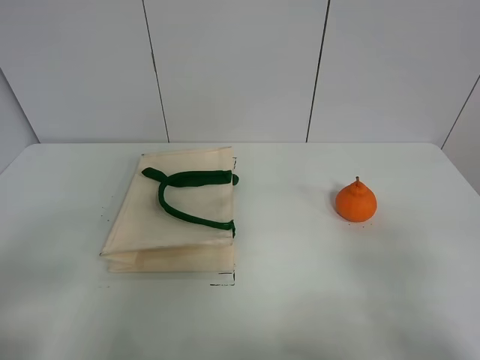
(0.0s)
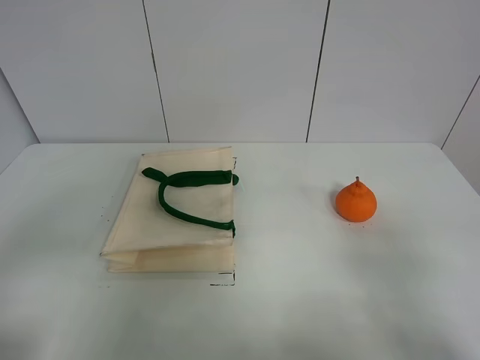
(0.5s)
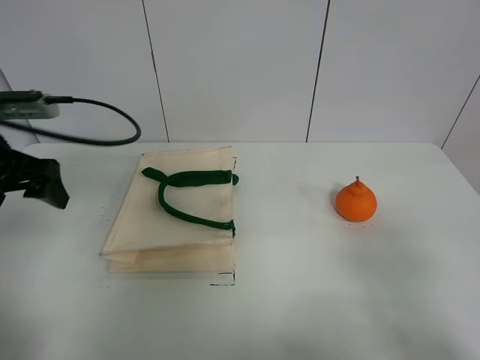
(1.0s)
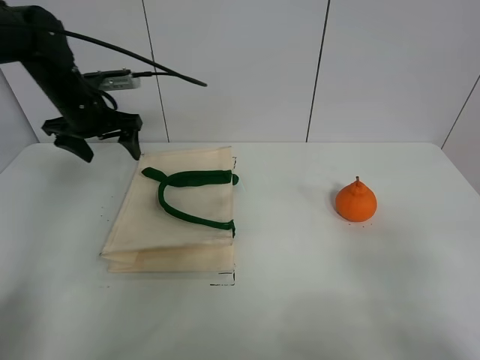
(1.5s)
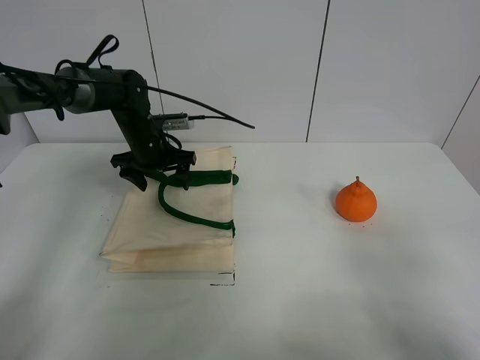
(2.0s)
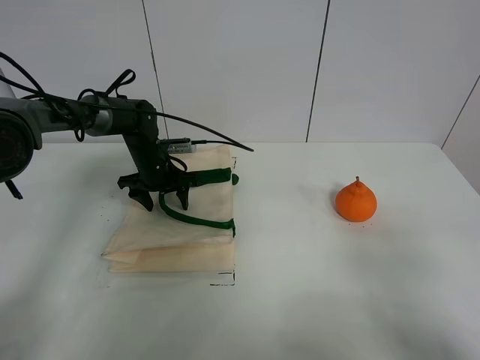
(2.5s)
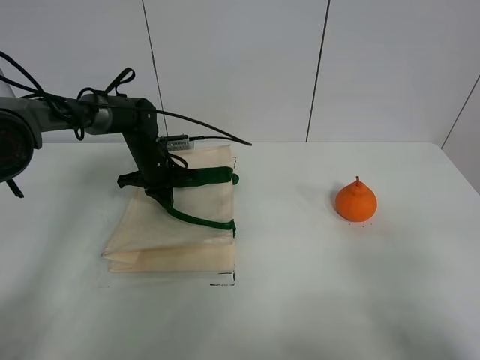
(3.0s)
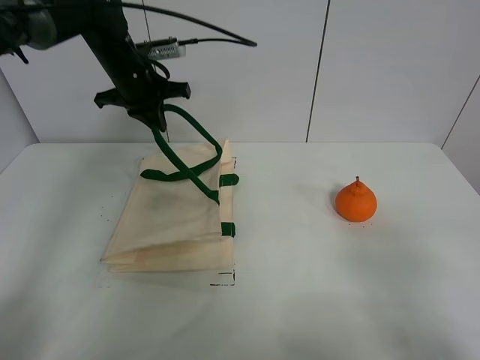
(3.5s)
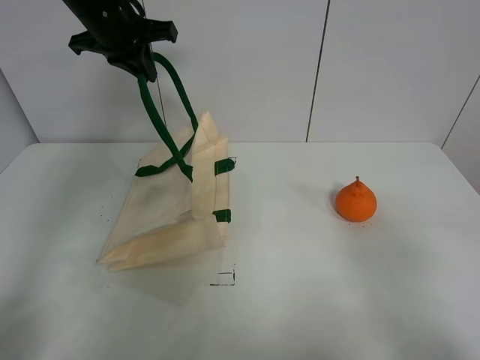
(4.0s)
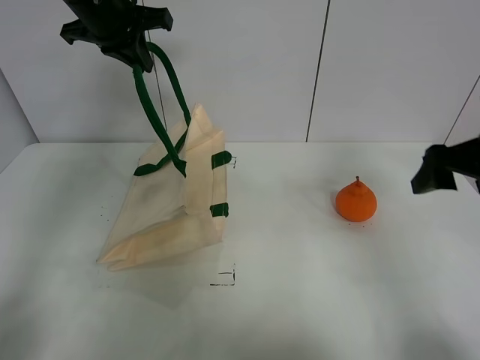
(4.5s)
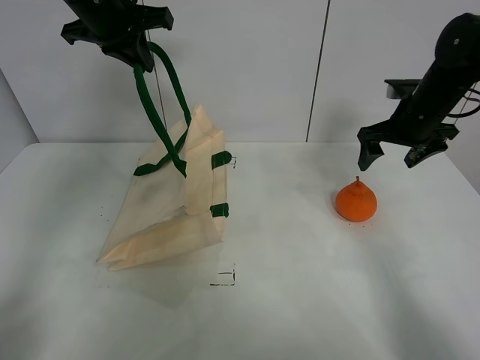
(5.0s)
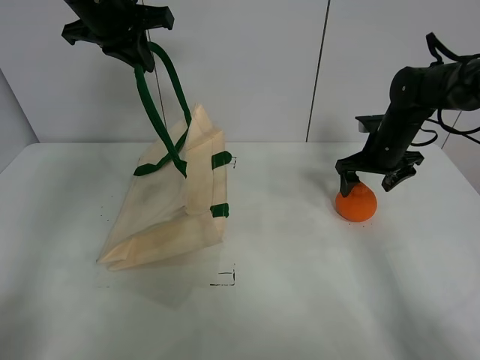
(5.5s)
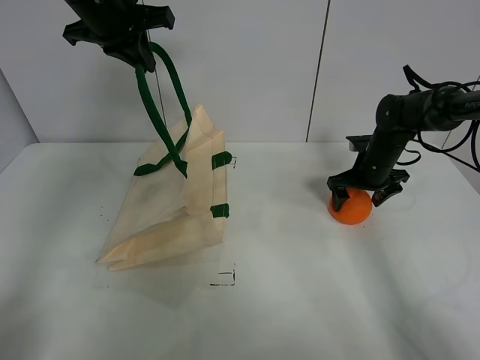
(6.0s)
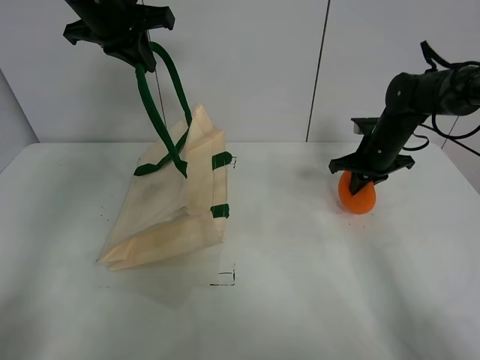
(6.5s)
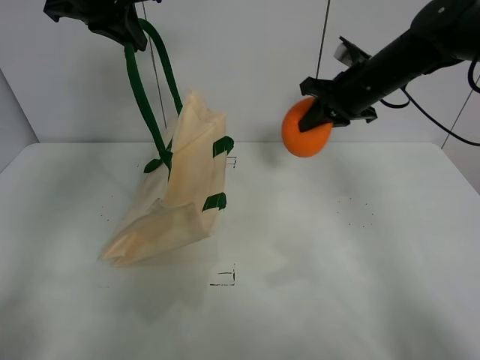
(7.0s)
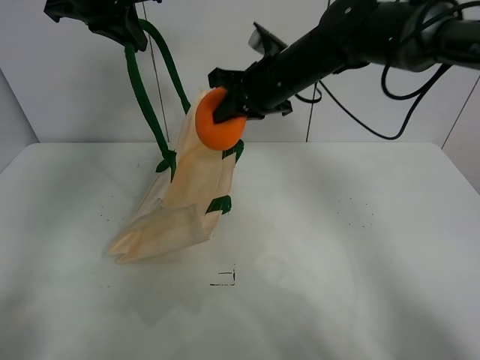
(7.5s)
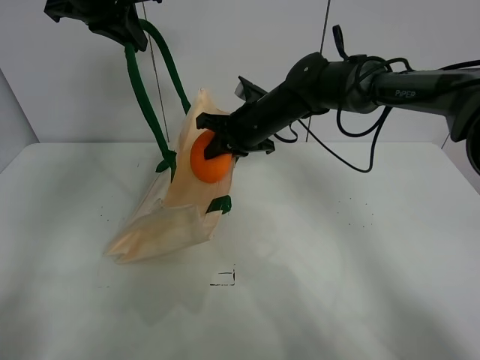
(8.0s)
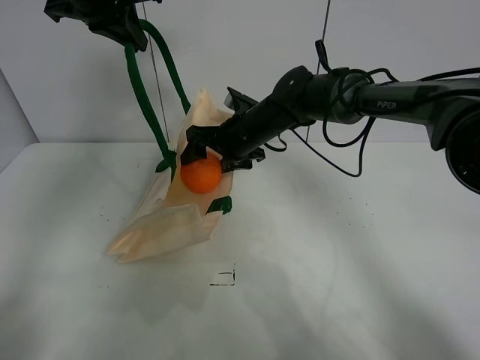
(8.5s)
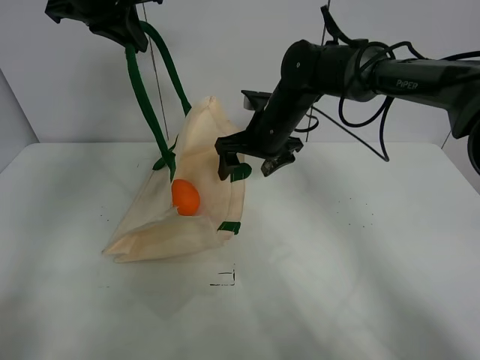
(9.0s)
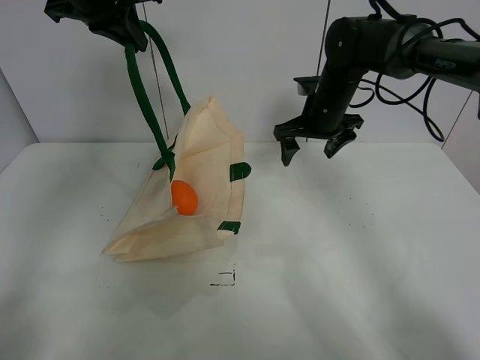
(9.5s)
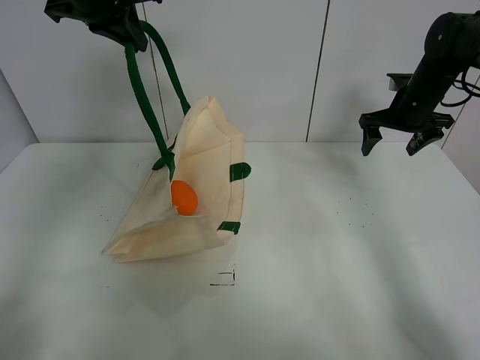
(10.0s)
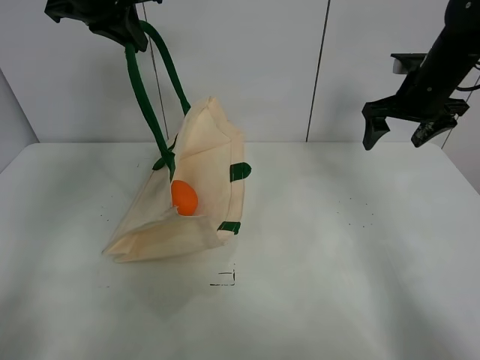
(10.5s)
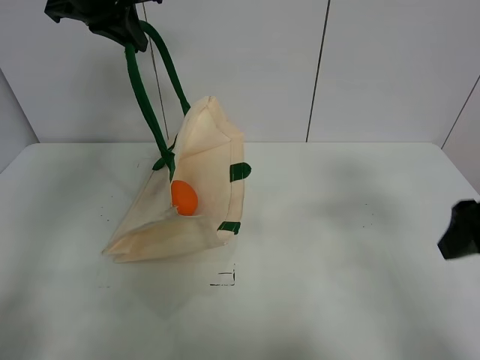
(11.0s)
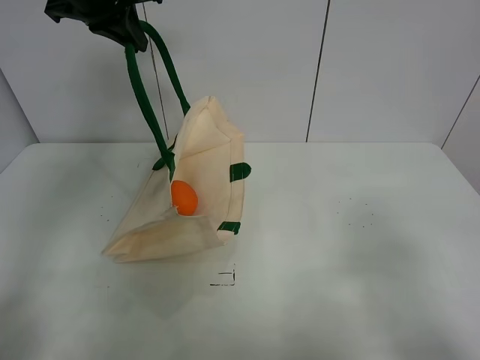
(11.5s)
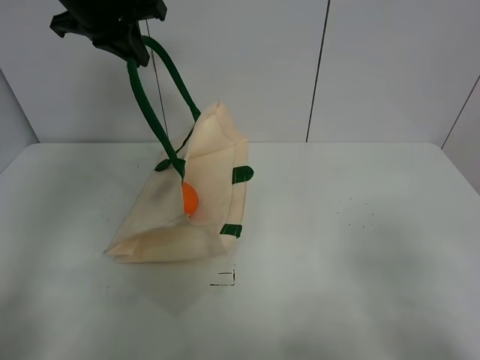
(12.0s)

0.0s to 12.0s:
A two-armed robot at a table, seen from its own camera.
Task of the whole recording: open the white linen bag and put the orange in the bag.
Step, 0.0s to 3.5s: Lift the handbag with left gripper.
Step, 4.0s to 6.0s: Grasp the orange with right gripper.
Step, 6.5s to 8.5s: Place the orange in the handbag with right gripper.
0.0s to 2.0s: The left gripper travels forward by approximately 50 cm.
2.0s to 4.0s: The left gripper shifts about 20 cm upward, and closes up.
4.0s to 6.0s: The right gripper goes roughly 40 cm forward and downward.
6.0s to 8.0s: The right gripper is displaced to the left by about 25 cm, and closes its fingers.
8.0s to 10.0s: The right gripper moves to the right, roughly 25 cm, and opens up.
10.0s to 12.0s: The right gripper shifts some 50 cm backward.

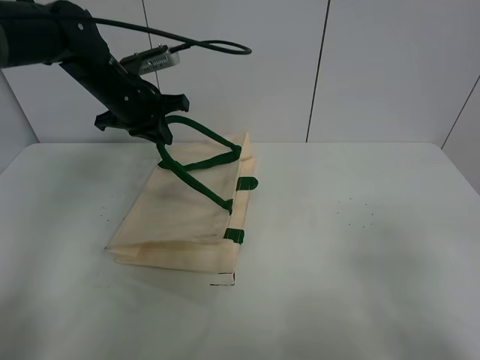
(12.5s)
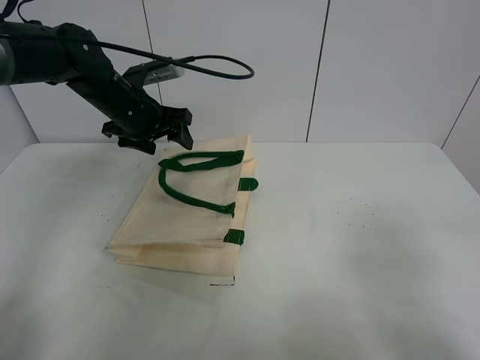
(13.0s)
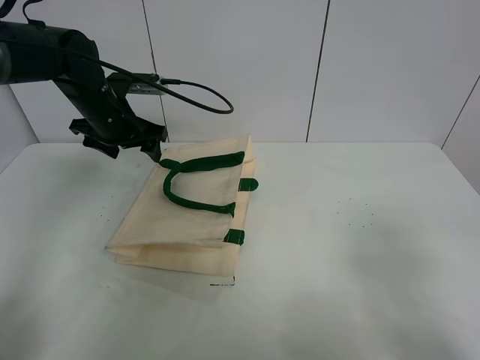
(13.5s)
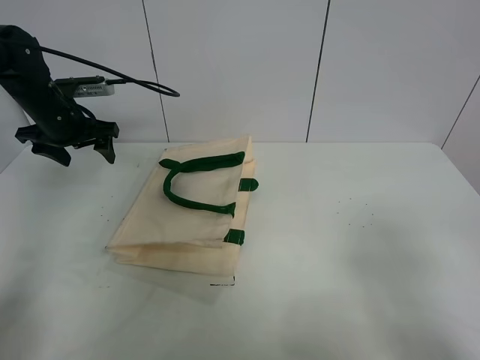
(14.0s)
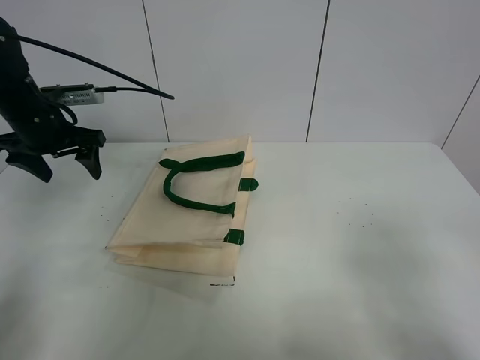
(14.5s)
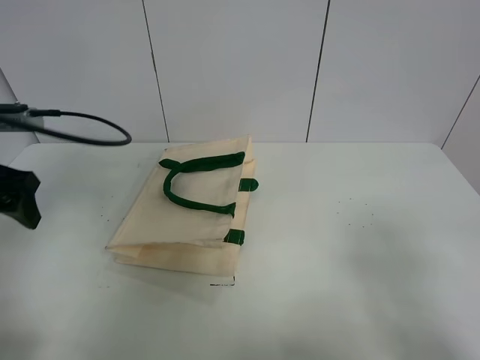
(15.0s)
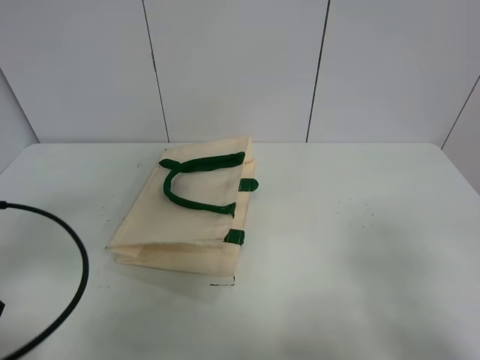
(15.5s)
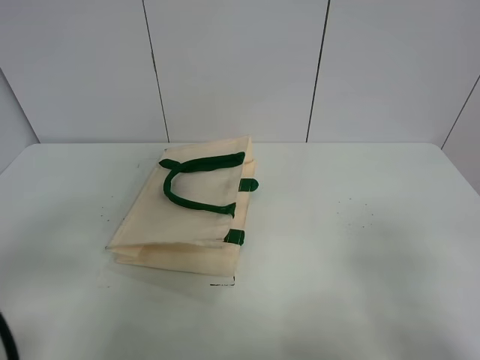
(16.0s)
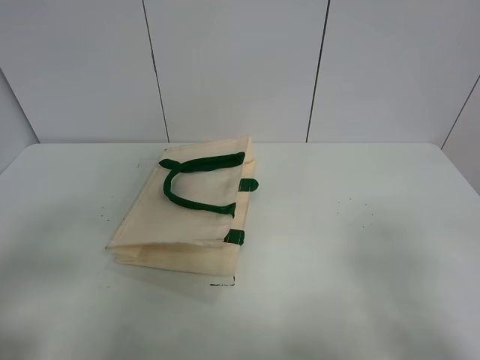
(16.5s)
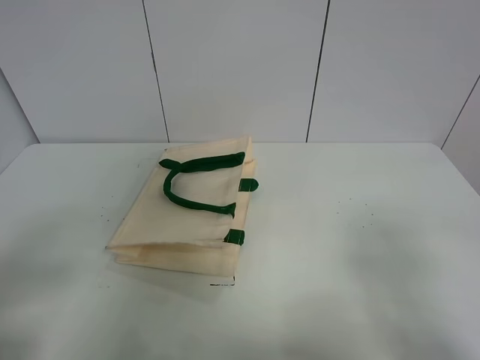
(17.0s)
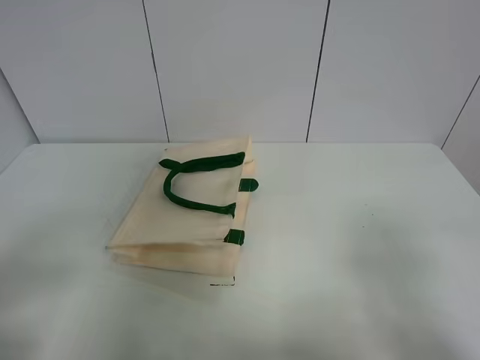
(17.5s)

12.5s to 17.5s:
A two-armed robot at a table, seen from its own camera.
Task of the whole recording: open the white linen bag and put the orange in the bag.
12.5s to 15.0s: The left gripper shifts approximately 20 cm backward and to the left, and opens up.
15.0s to 17.5s: The left gripper goes roughly 25 cm backward.

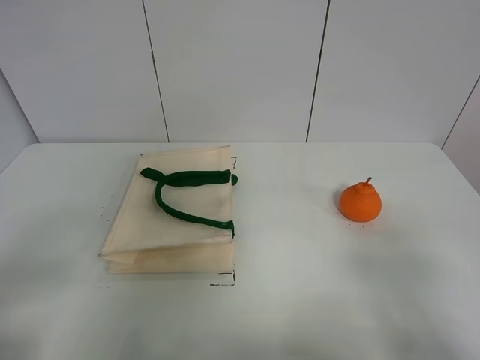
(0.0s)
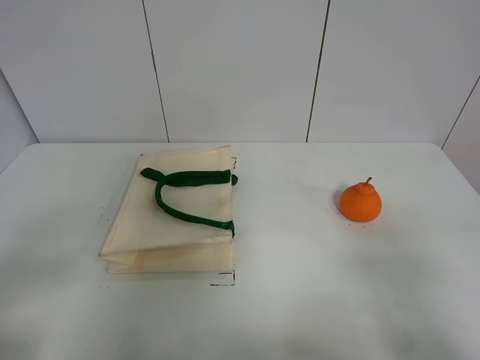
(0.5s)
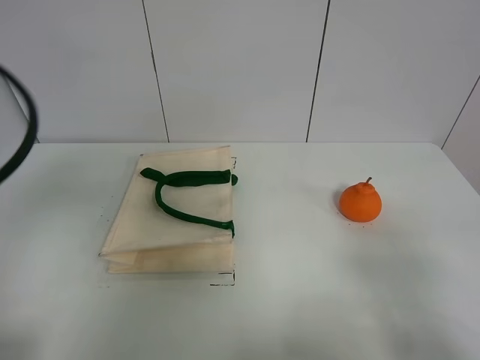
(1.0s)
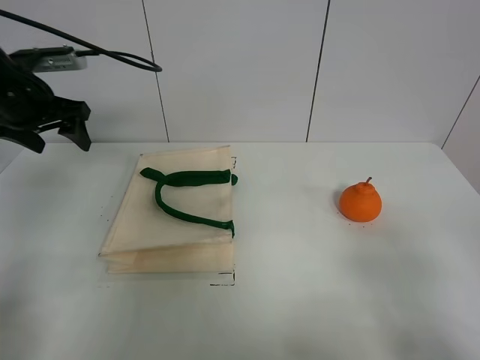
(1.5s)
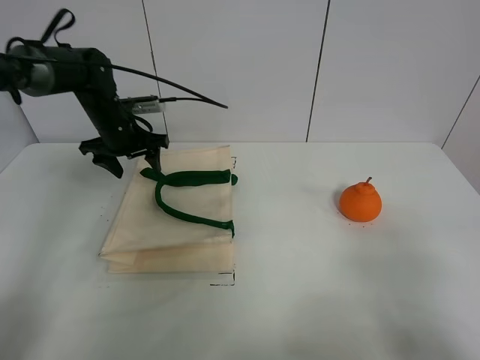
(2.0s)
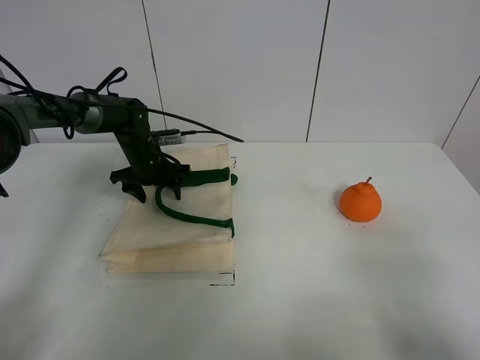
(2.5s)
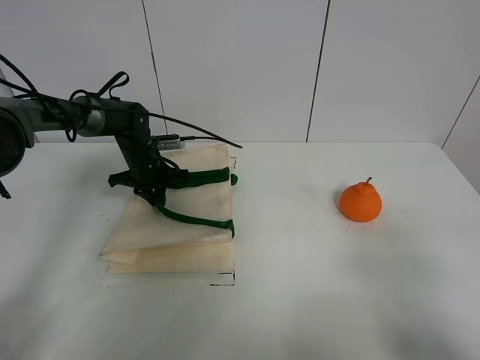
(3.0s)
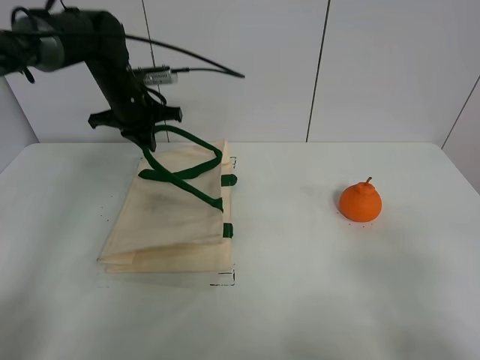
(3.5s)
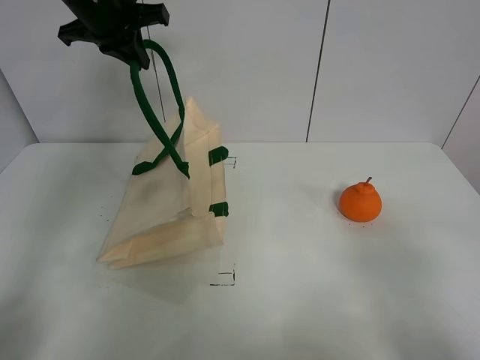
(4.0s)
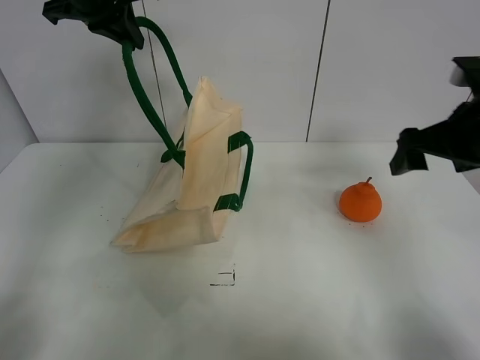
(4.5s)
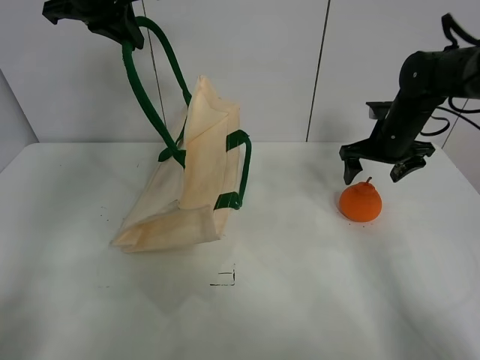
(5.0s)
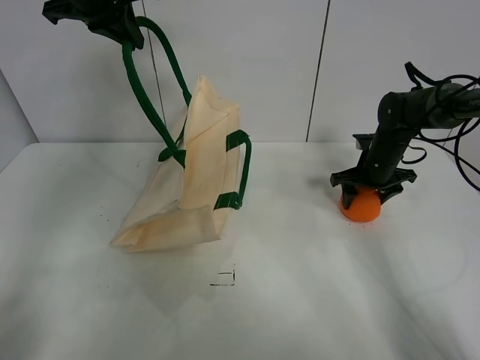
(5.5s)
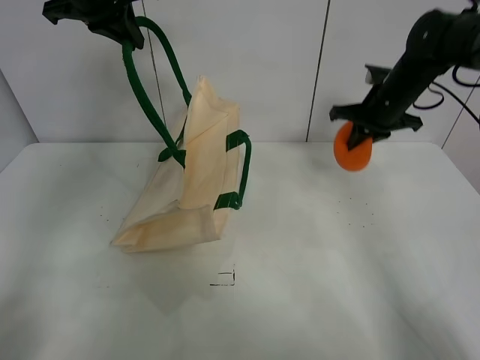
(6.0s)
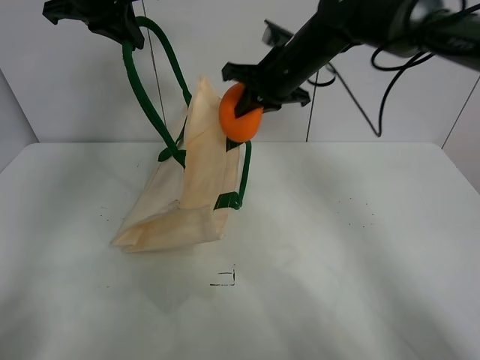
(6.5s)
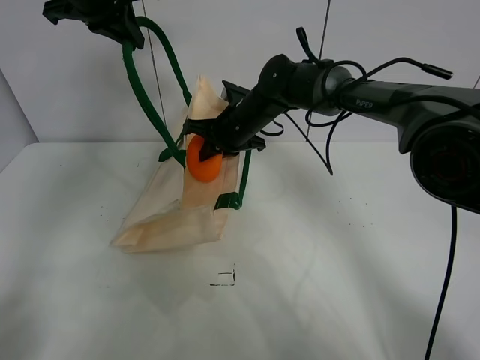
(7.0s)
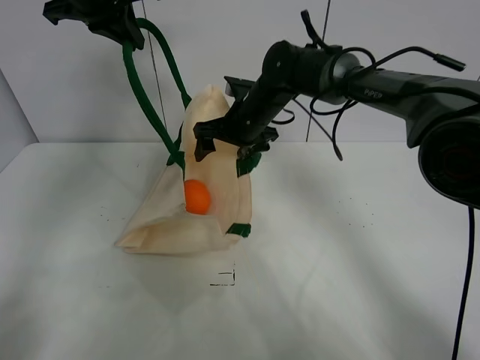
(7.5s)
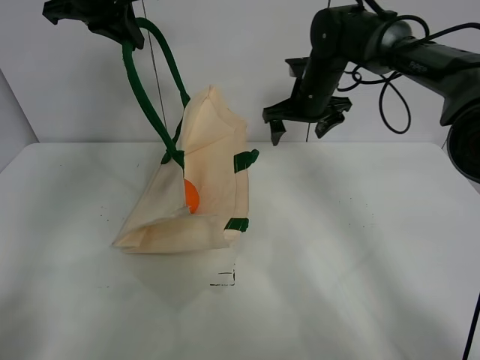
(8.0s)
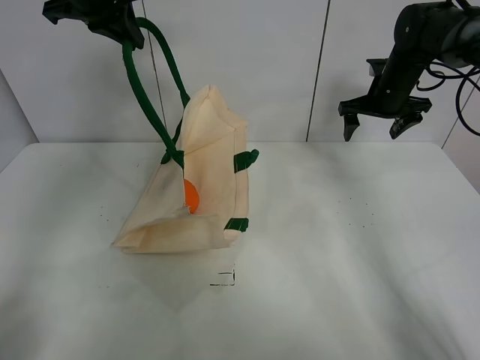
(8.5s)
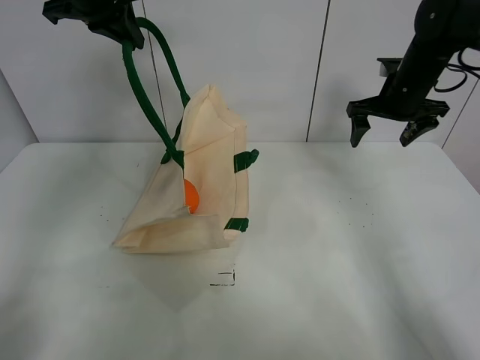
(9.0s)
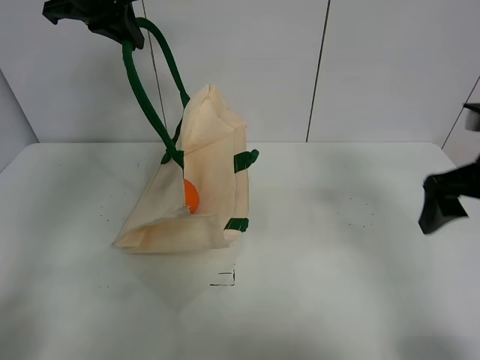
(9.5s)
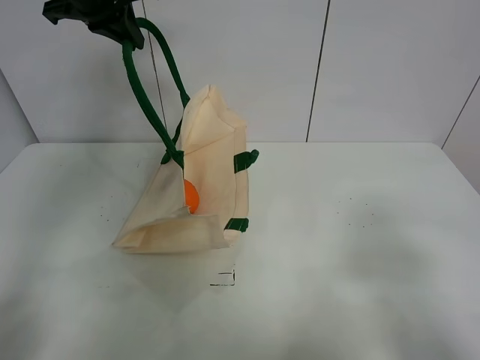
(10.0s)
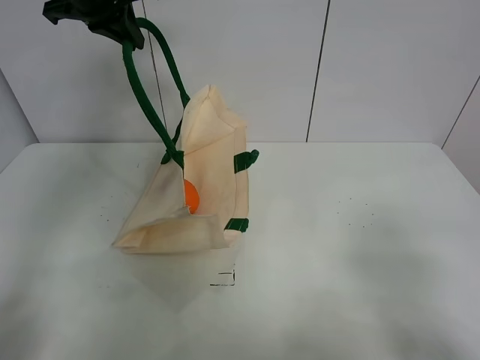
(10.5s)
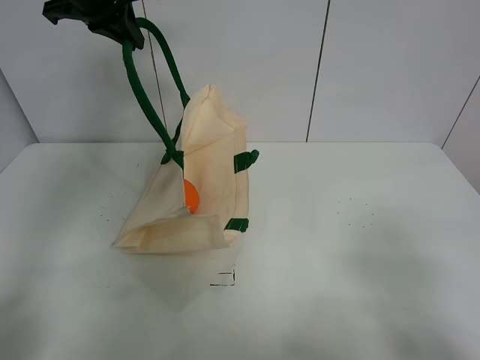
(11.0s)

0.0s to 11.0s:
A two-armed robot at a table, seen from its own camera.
Task of the whole recording: open the white linen bag and put the orange in the bag.
Step, 0.0s to 4.0s: Lift the handbag with left gripper.
Step, 4.5s to 5.5s: Grasp the orange with right gripper.
Step, 6.0s to 7.5s: Place the orange in the handbag with right gripper.
0.0s to 2.0s: The left gripper is displaced forward by about 50 cm.
2.0s to 3.5s: The left gripper moves about 10 cm downward and comes back, and closes up.
3.5s to 5.5s: The right gripper goes some 40 cm forward, and closes. The left gripper is displaced upward by roughly 20 cm.
5.5s to 7.5s: The right gripper shifts approximately 25 cm to the left and upward, and opens up.
7.5s to 9.0s: The right gripper travels to the right by about 25 cm.
9.0s to 11.0s: The right gripper is displaced backward by roughly 40 cm.
